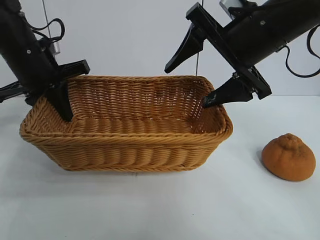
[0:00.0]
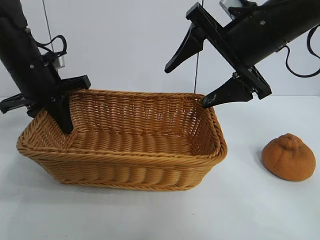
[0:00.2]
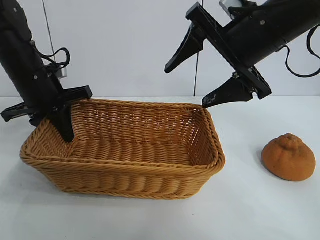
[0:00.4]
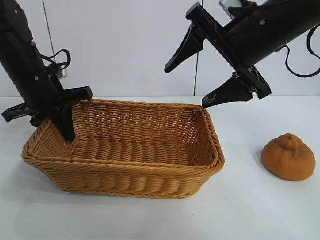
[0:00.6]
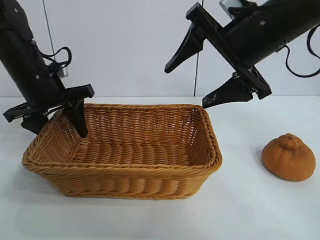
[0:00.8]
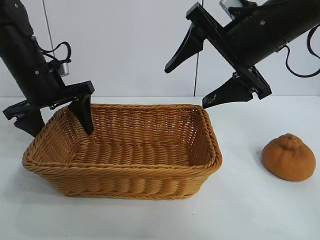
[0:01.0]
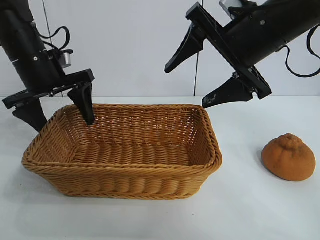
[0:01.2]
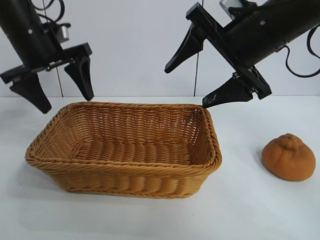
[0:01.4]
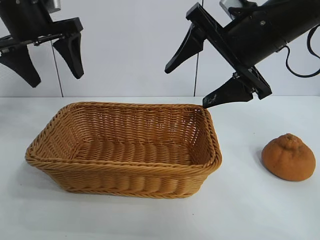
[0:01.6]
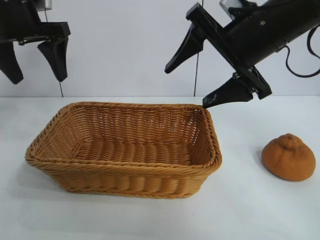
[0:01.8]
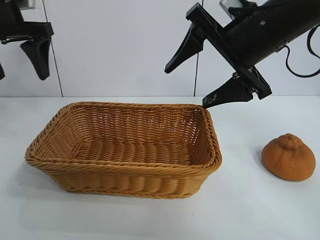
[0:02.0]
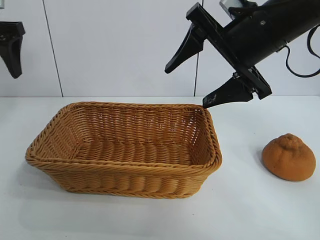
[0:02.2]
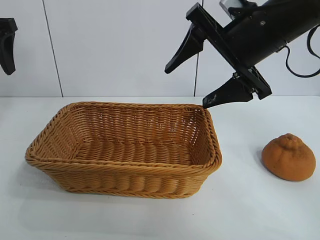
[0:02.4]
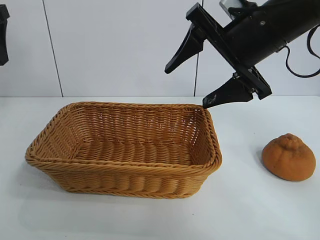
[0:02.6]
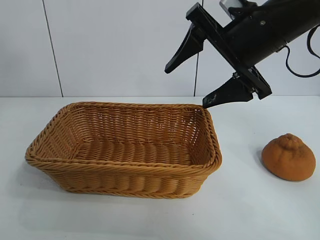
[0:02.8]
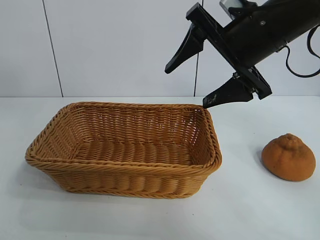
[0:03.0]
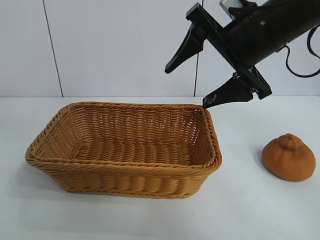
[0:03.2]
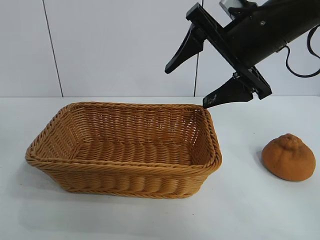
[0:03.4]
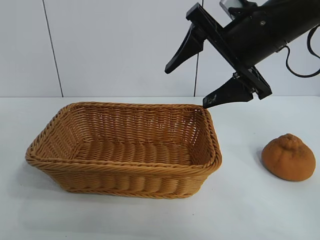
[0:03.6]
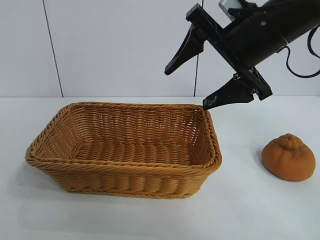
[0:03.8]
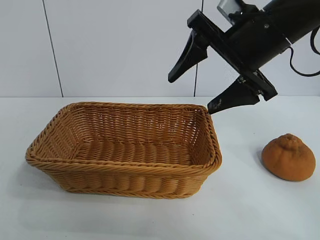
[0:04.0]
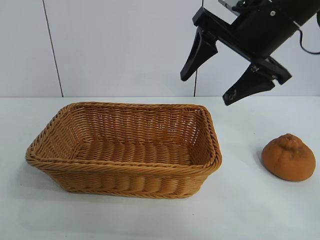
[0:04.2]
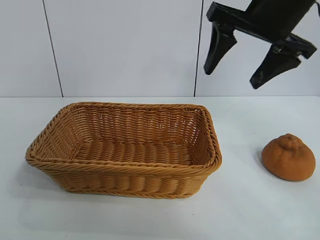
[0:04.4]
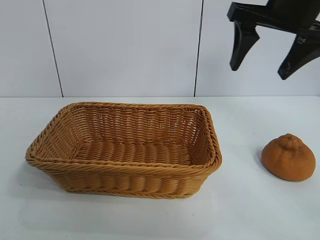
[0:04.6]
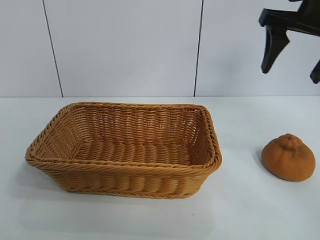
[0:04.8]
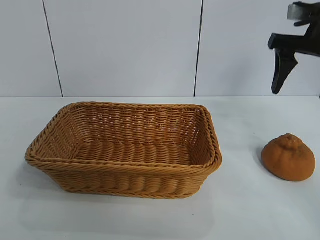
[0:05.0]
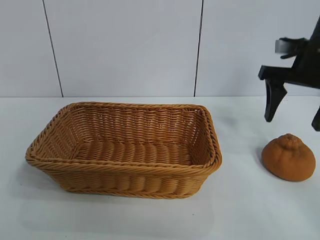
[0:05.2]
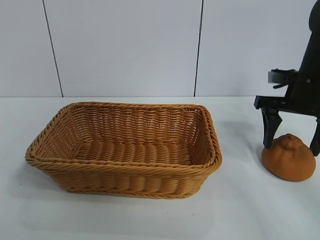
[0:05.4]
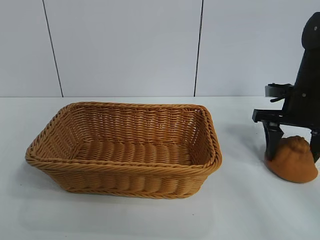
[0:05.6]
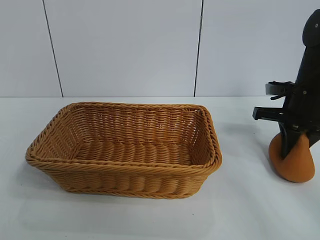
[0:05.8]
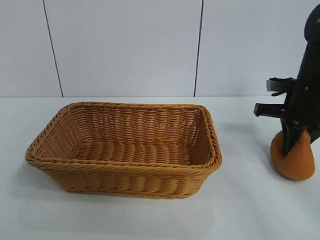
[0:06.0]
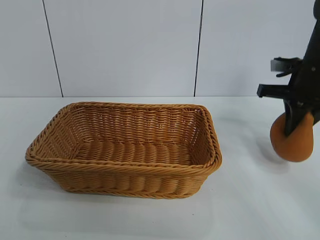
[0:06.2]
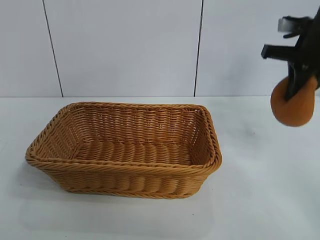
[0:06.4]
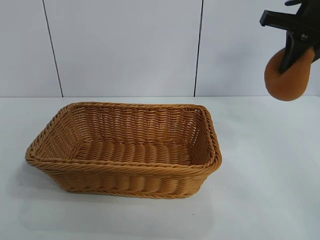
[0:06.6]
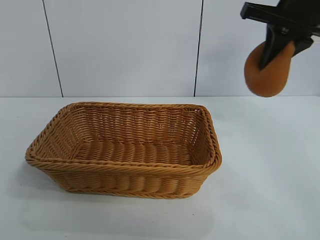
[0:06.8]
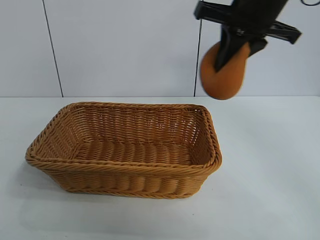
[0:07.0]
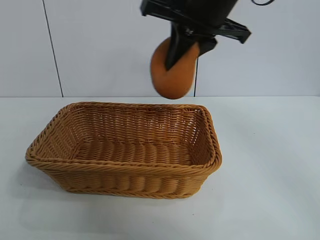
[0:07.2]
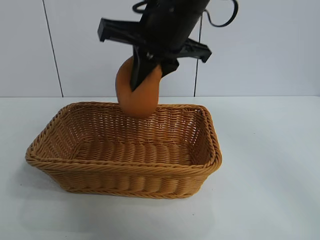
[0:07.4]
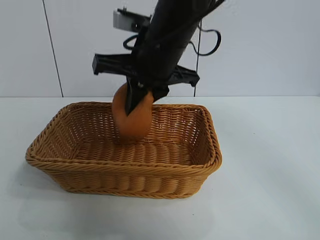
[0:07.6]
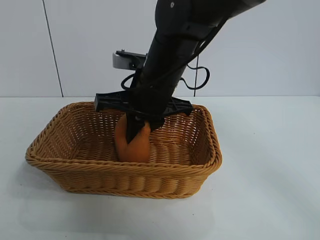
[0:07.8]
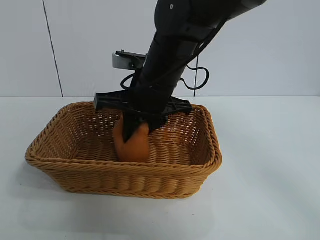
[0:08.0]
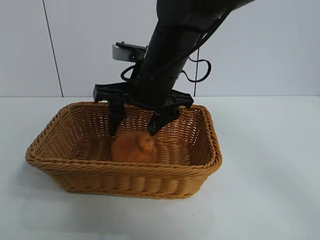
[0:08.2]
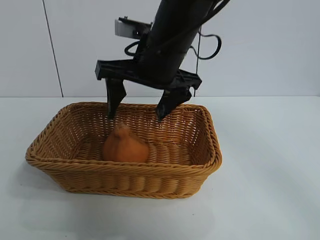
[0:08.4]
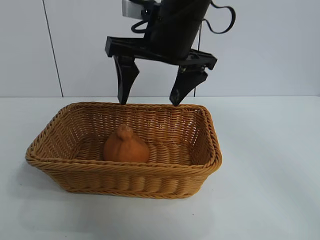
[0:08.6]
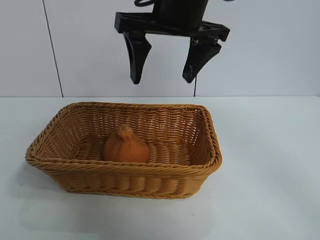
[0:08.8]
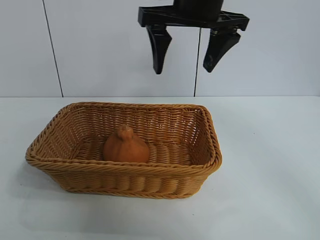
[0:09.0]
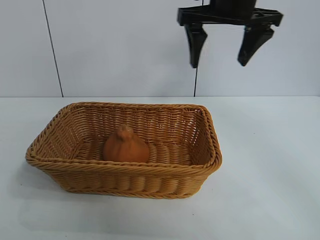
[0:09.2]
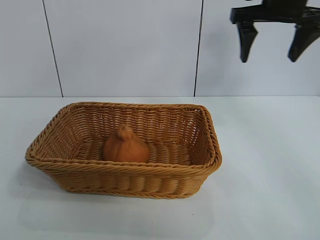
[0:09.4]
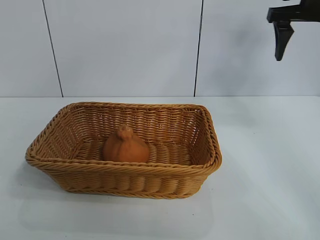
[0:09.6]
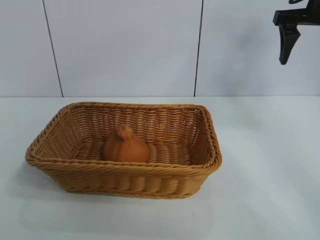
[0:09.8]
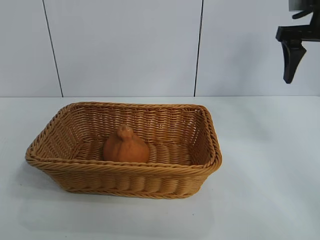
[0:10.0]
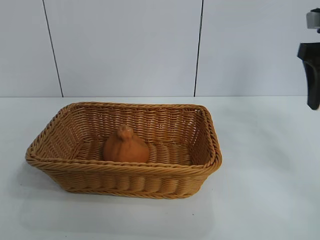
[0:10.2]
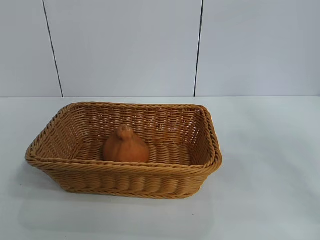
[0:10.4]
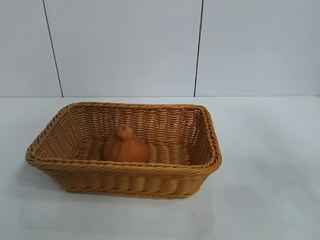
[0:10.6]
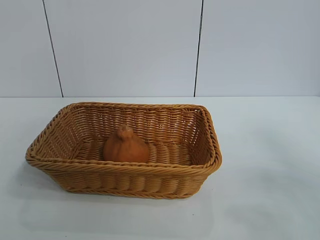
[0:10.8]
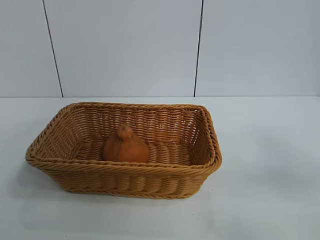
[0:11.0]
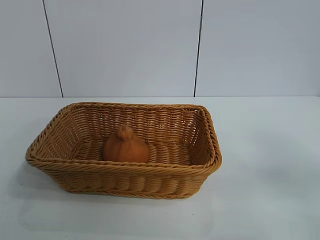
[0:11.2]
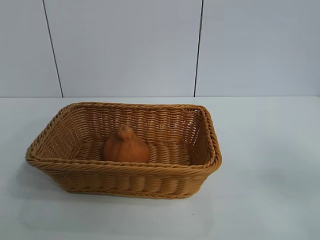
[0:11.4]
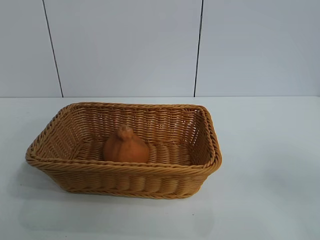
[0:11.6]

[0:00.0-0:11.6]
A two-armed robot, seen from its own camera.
Task of the whole recording: pick up the orange and put it into the basket.
Step, 0:01.0 to 0:05.6: Grasp the orange with right gripper.
Step, 0:06.0 to 0:08.2: Place the orange in the basket with right gripper.
